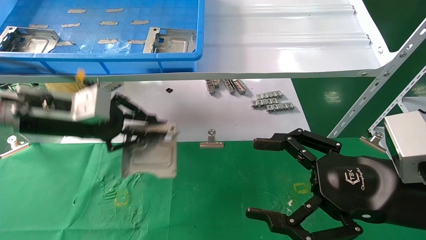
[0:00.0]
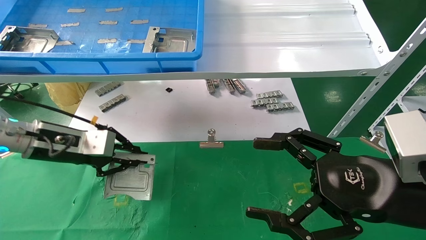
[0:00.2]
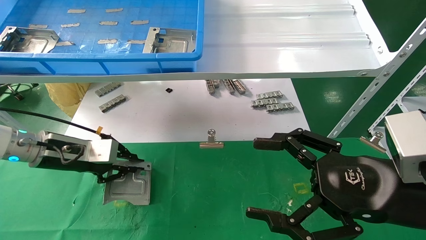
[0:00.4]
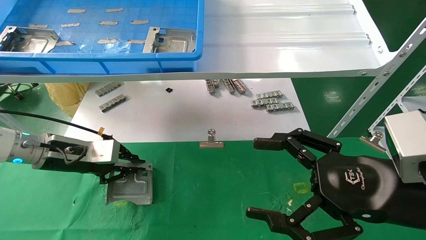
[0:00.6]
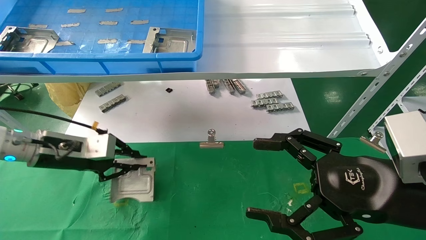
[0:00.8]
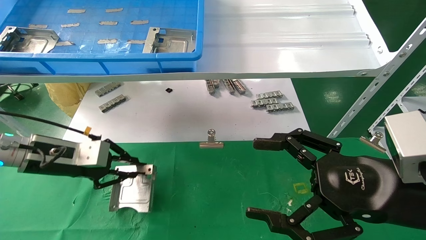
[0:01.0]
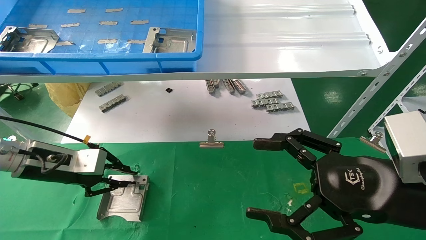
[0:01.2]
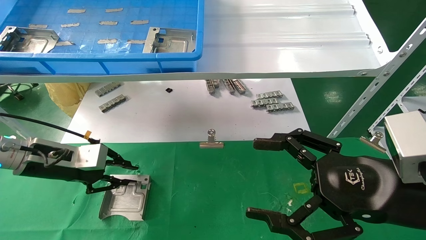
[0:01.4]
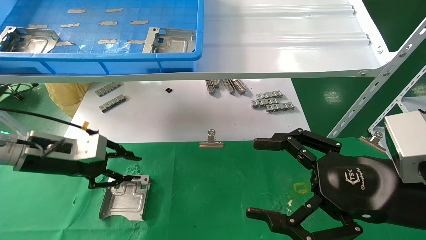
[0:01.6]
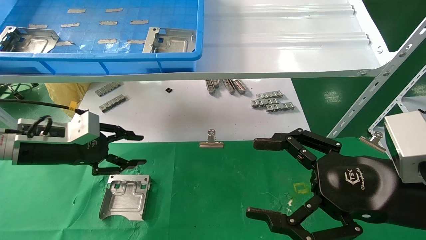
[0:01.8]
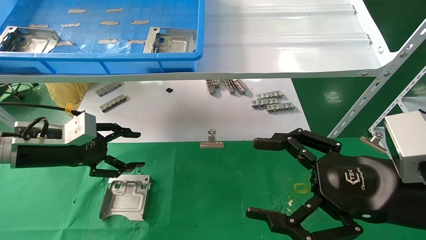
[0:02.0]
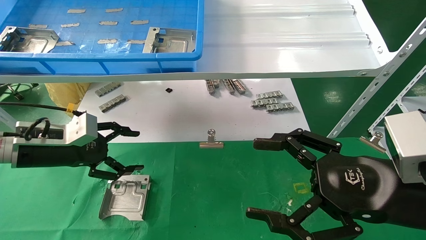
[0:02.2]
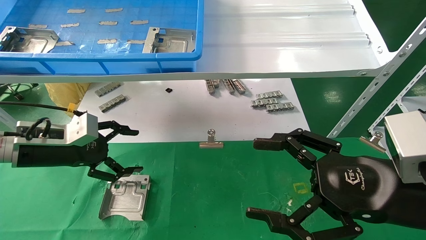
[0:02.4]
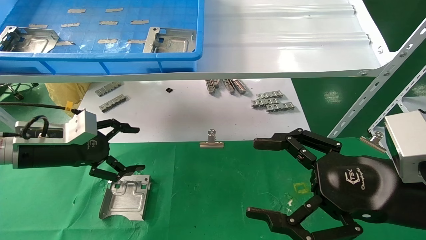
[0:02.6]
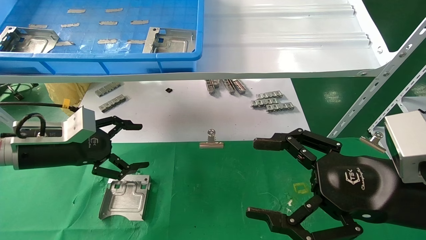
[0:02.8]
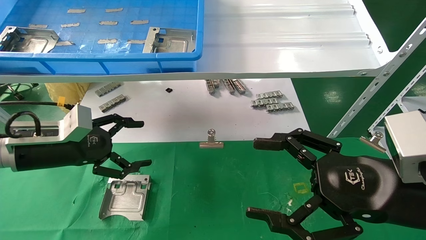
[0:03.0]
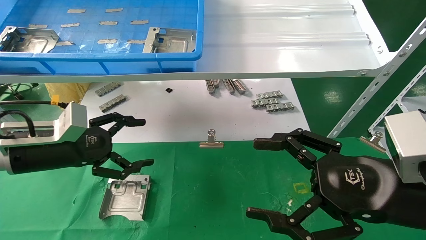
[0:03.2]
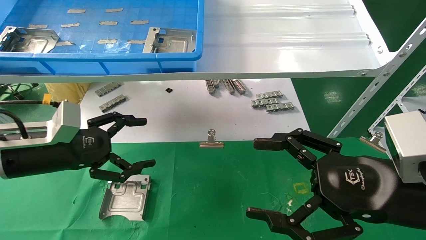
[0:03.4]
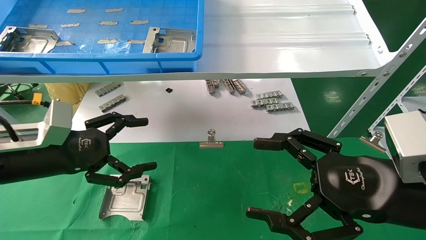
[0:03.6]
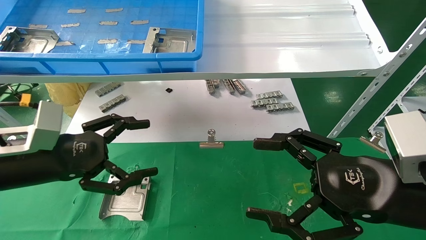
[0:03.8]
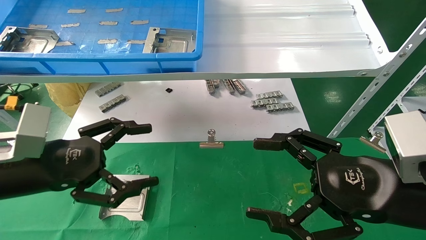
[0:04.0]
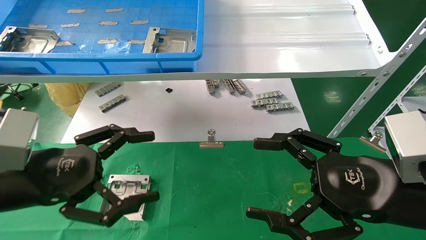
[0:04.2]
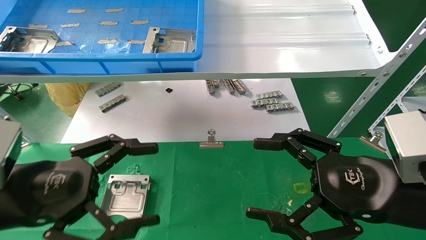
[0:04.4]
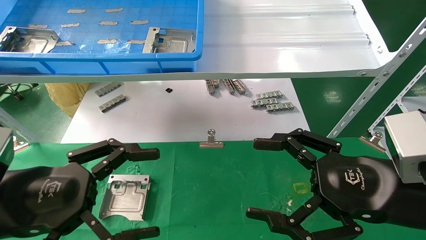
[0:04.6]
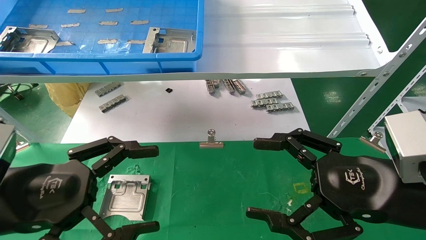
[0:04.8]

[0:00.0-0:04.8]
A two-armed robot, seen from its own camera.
Task of the whole recording: use the mechanical arm to pick up the parts and place them on the table.
Step, 0:00.0 to 0:01.6: Place the hard drive bracket into the box.
0:00.0 to 0:01.6: The left gripper travels downward by about 10 cm.
0:01.6 to 0:03.2: The left gripper opens up.
0:03.2 to 0:04.8: The left gripper goes about 15 cm backward.
